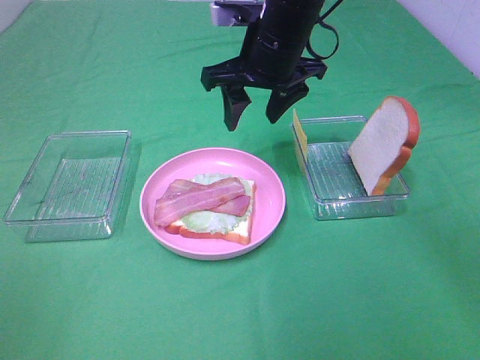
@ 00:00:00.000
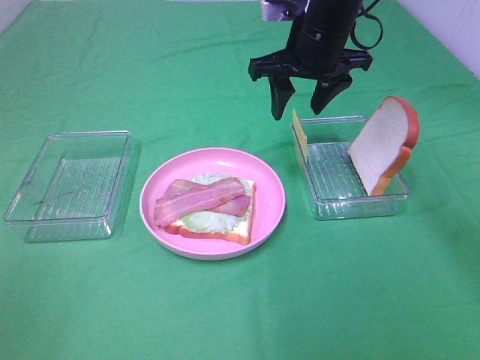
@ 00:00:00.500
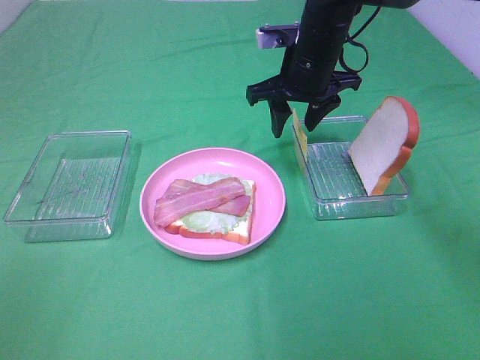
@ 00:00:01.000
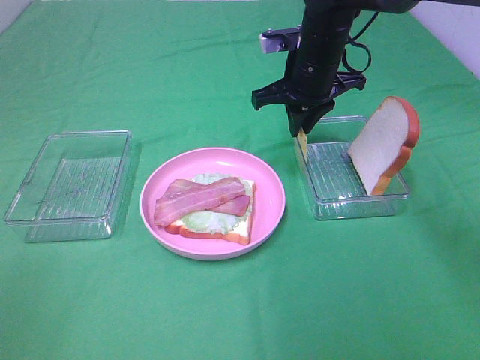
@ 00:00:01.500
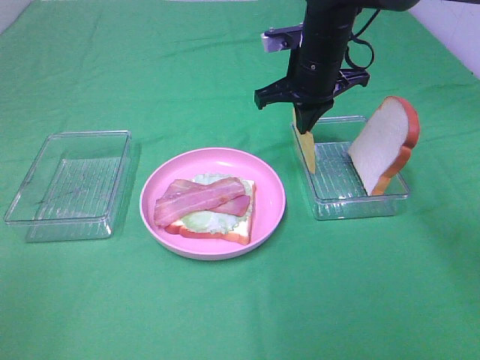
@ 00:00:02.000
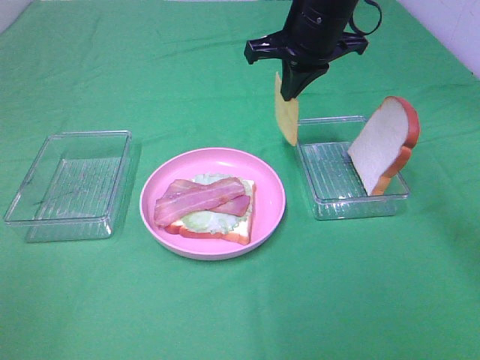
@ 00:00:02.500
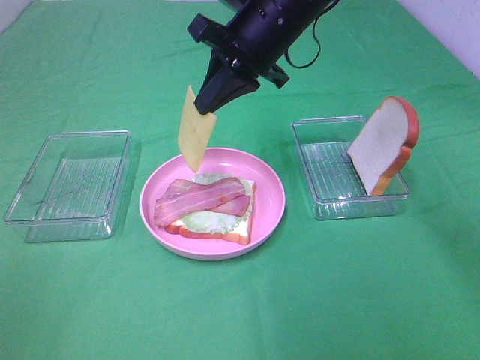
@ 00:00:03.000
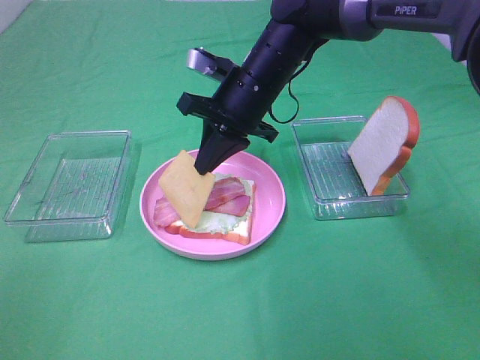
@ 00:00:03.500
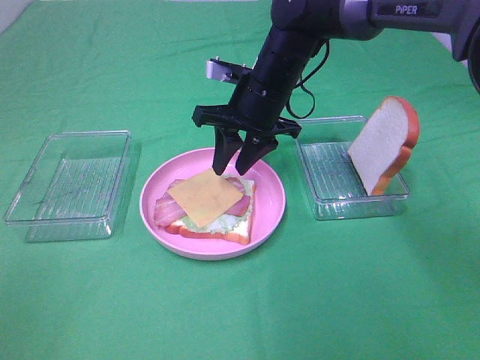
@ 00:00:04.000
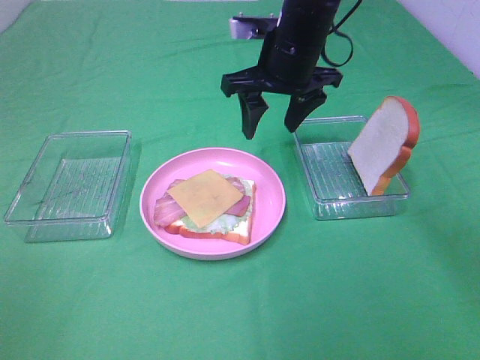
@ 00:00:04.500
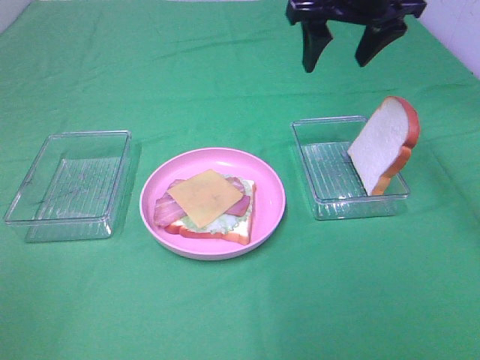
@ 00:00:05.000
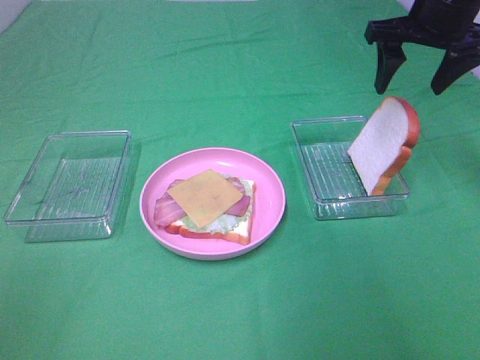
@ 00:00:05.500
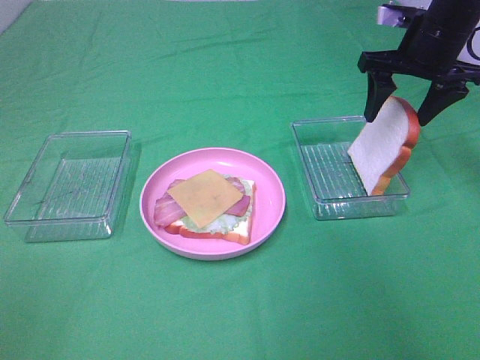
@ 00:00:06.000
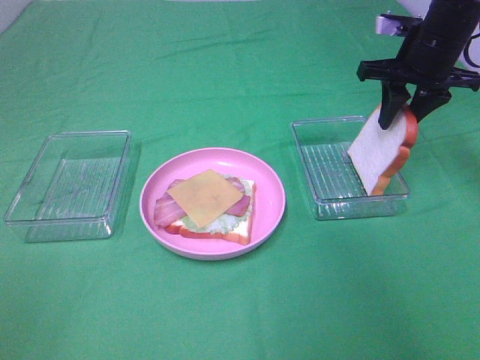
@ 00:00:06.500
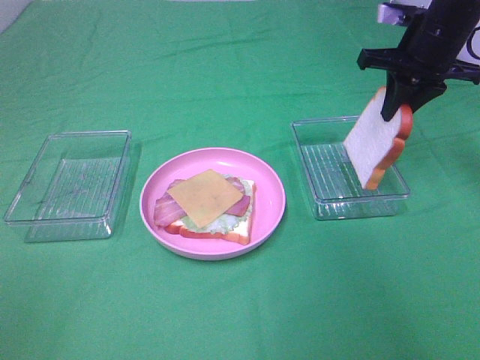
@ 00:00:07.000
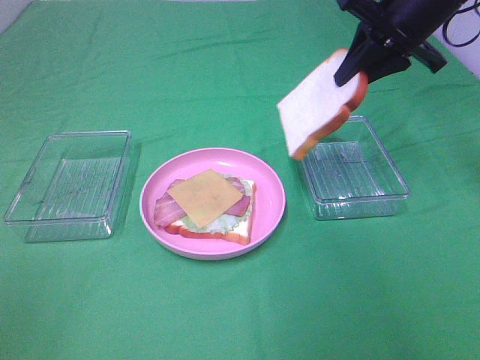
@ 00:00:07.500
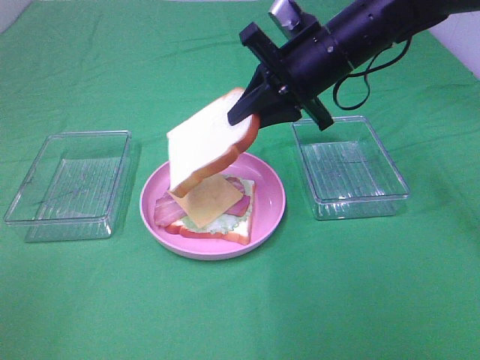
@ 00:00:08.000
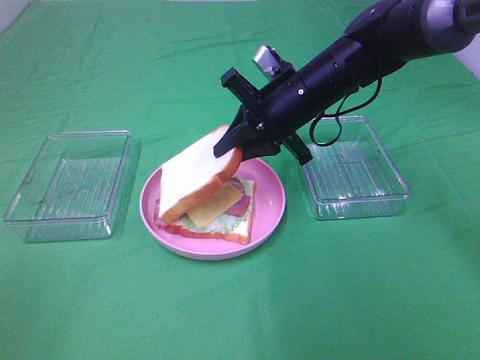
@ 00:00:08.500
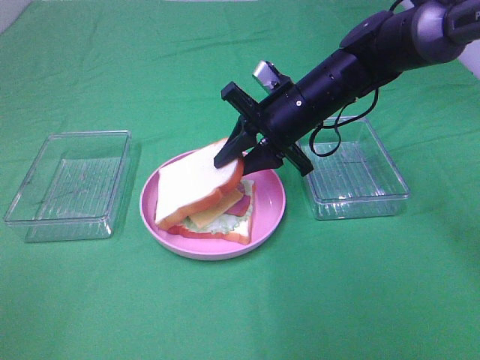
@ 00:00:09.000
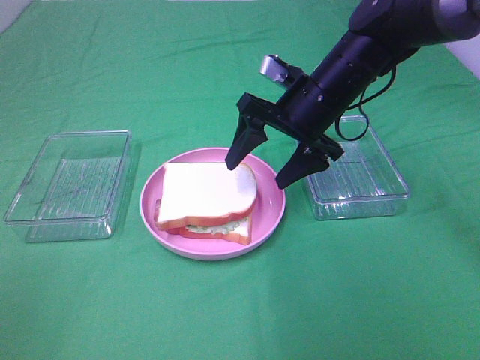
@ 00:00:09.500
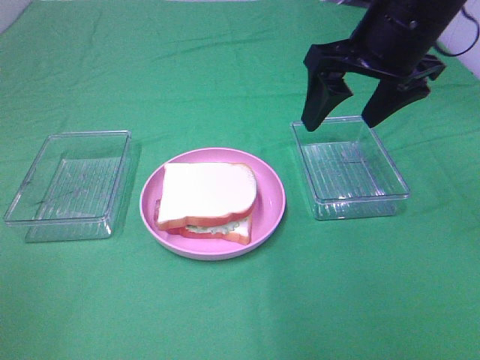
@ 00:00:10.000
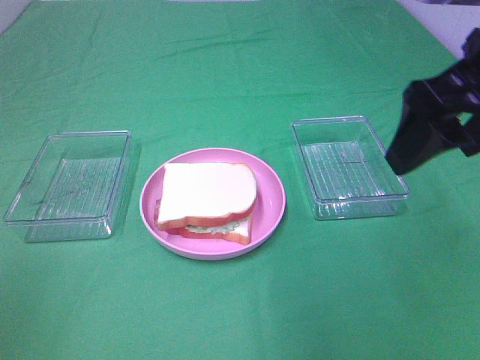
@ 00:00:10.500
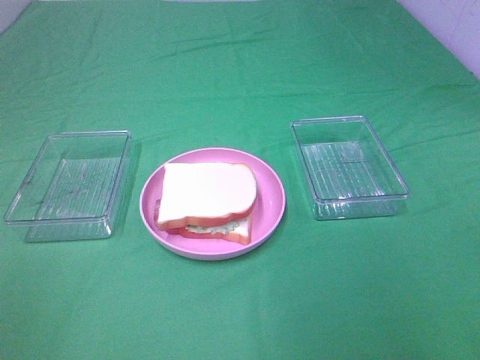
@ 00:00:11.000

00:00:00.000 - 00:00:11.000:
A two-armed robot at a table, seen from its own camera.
Task of the whole recording: Make sandwiches.
Step, 00:00:00.000 - 00:00:01.500: Right hand:grab the cheese slice.
Step, 00:00:02.000 - 00:00:04.000: Right hand:place the cheese slice on top of the bacon.
Step, 00:00:04.500 - 00:00:06.500: Right hand:grab the bread slice.
Step, 00:00:07.000 - 00:00:09.500: Right hand:place the bread slice on the cheese slice.
00:00:00.000 - 00:00:02.000: The right gripper heads to the right, covering some 5 cm, and closes its fingers.
00:00:02.000 - 00:00:03.500: The right gripper travels to the left by approximately 5 cm, and reaches about 5 cm upward, then returns.
00:00:03.500 - 00:00:05.500: The right gripper heads to the right and upward, covering roughly 25 cm, and opens.
00:00:05.500 - 00:00:07.500: The right gripper closes its fingers.
00:00:07.500 - 00:00:09.000: The right gripper goes approximately 15 cm downward and to the left.
00:00:09.000 - 00:00:11.000: The right gripper travels backward, to the right and upward by about 40 cm, and opens.
